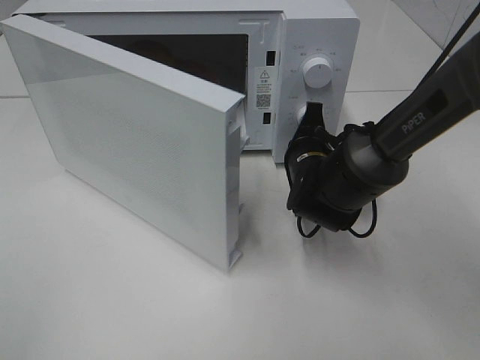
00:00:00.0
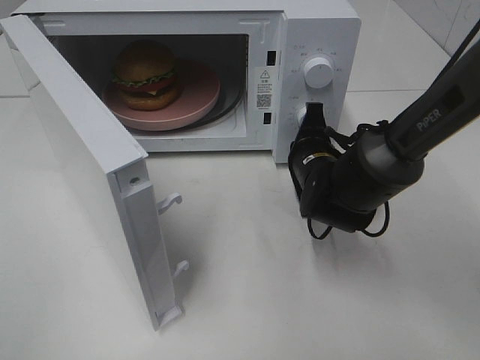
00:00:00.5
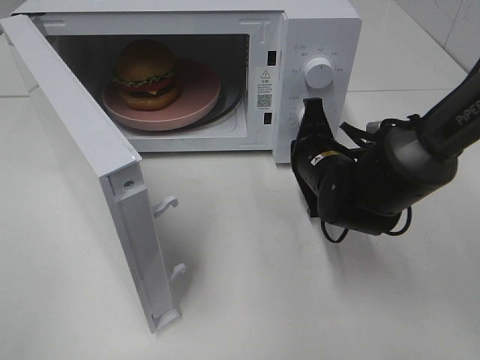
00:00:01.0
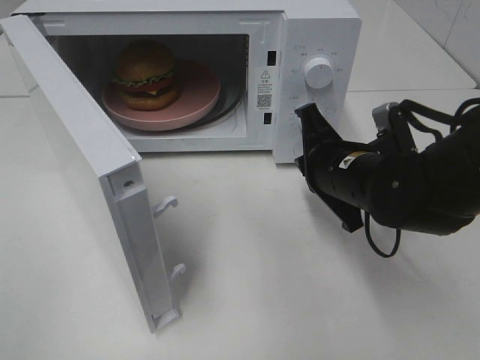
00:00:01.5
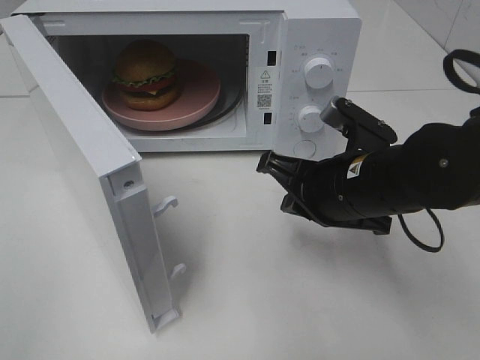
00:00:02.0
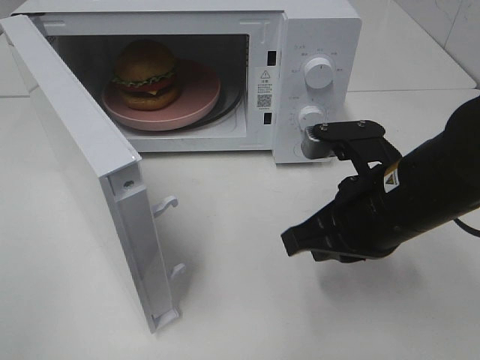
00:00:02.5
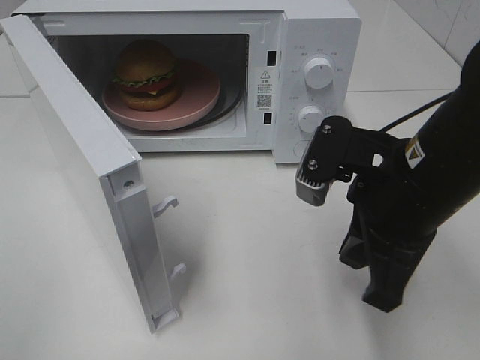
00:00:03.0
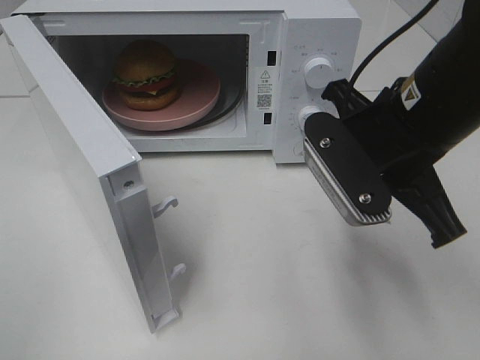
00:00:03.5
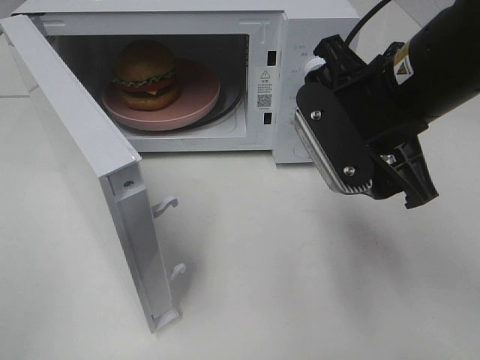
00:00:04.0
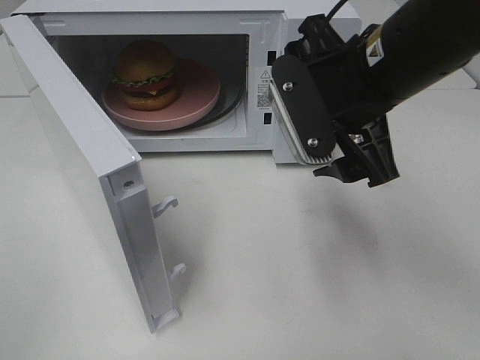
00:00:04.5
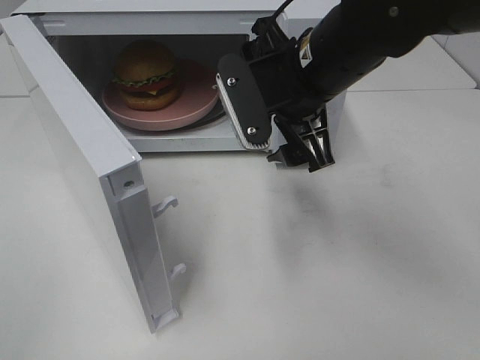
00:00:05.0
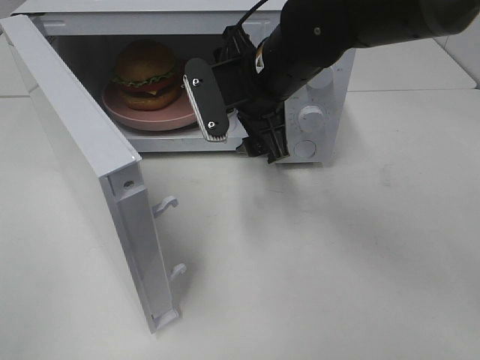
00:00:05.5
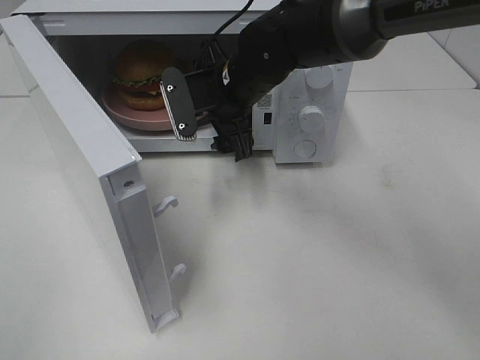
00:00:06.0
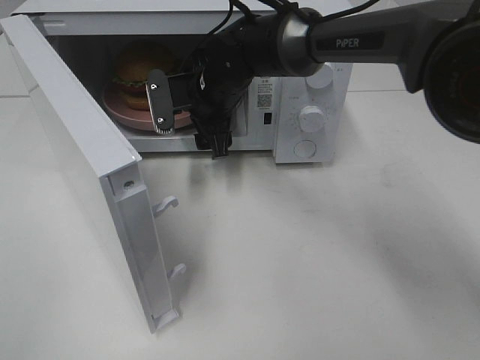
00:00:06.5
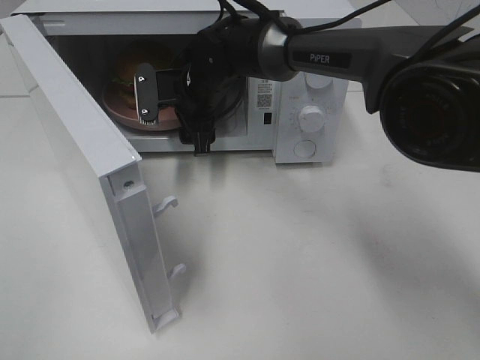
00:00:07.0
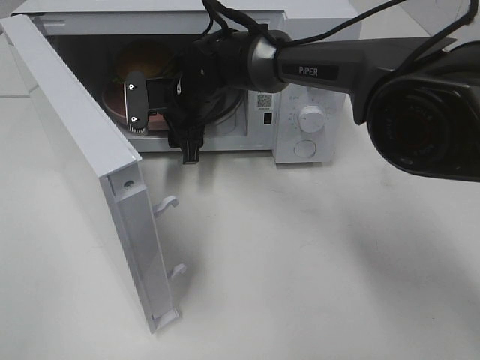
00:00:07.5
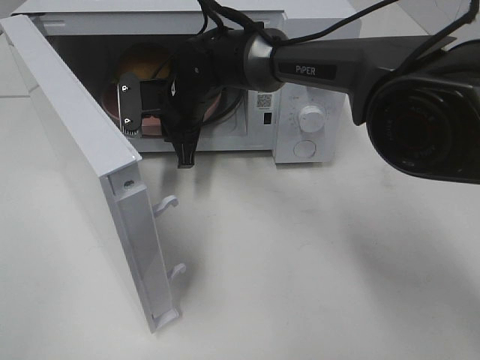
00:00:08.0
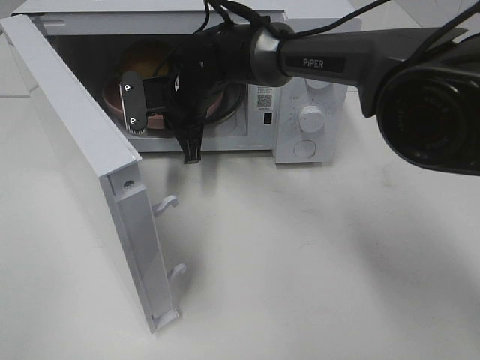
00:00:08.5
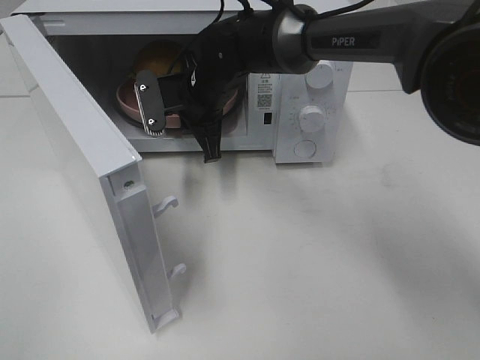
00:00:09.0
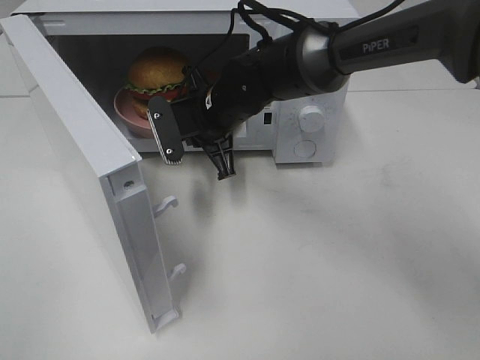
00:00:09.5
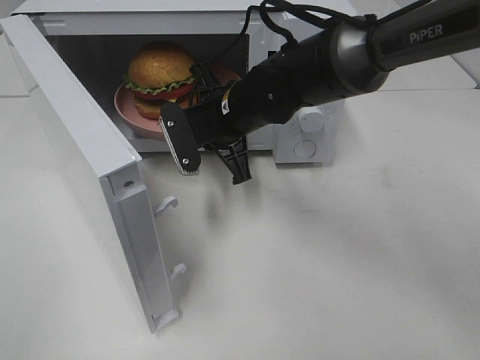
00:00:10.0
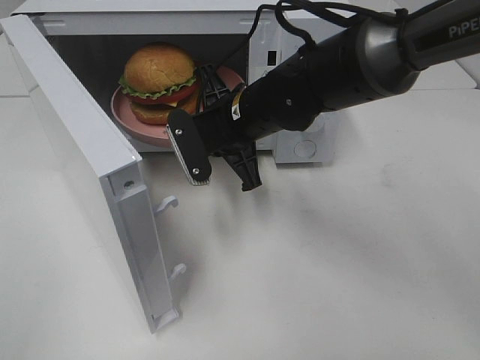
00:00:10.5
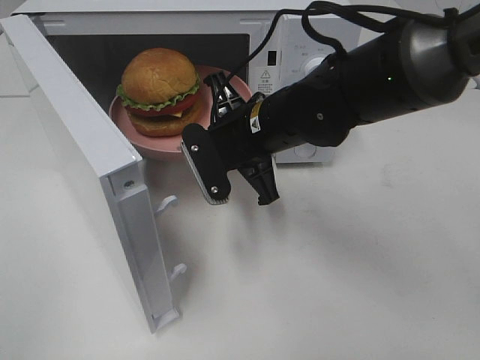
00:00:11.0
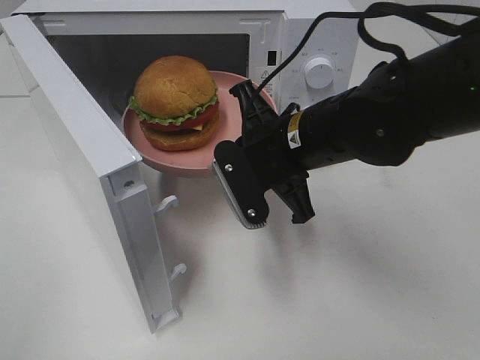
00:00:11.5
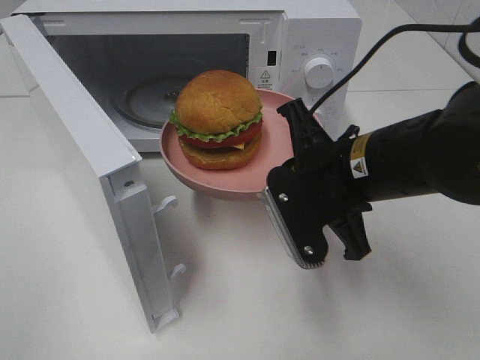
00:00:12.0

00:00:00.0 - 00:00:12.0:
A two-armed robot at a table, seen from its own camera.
Task of the whole recording: Heat the burger.
Step, 00:00:01.5 - 00:00:08.5: Right hand: grab the plate with the hamburger.
00:00:00.0 - 00:00:02.0: The right gripper moves backward and upward, approximately 15 cm.
00:00:02.0 - 00:00:04.0: The right gripper heads upward, covering some 10 cm, and opens.
00:00:04.0 - 00:00:06.0: The right gripper heads forward, to the left and downward, covering about 20 cm.
00:00:06.0 - 00:00:08.0: The right gripper is displaced to the left by some 5 cm, and closes up.
00:00:08.0 - 00:00:10.0: The right gripper shifts about 10 cm backward and to the right.
00:00:10.0 - 00:00:12.0: The right gripper heads backward and to the right, covering approximately 15 cm.

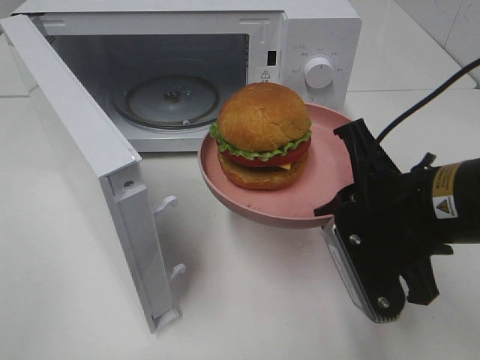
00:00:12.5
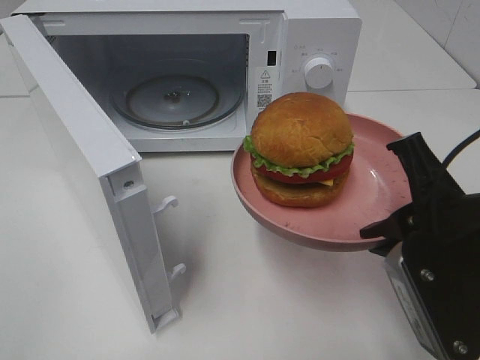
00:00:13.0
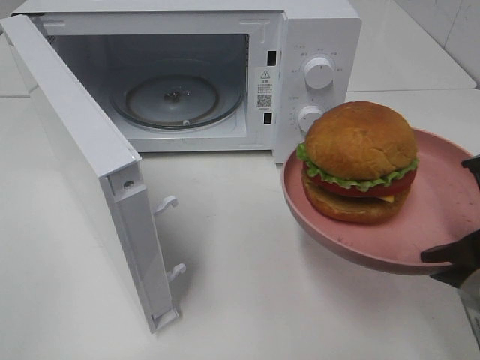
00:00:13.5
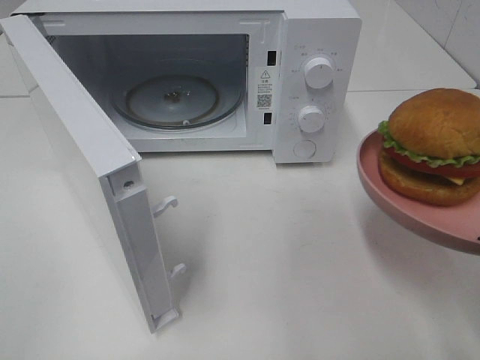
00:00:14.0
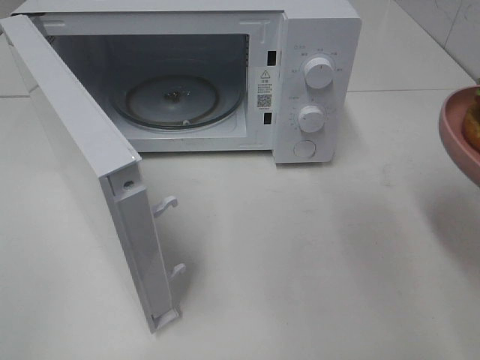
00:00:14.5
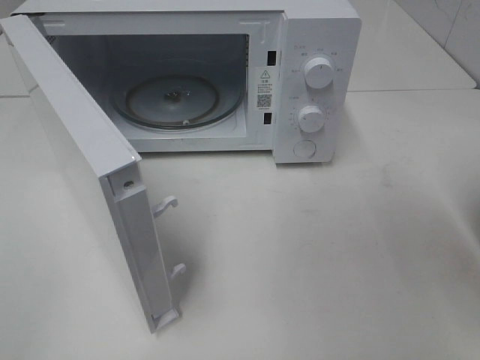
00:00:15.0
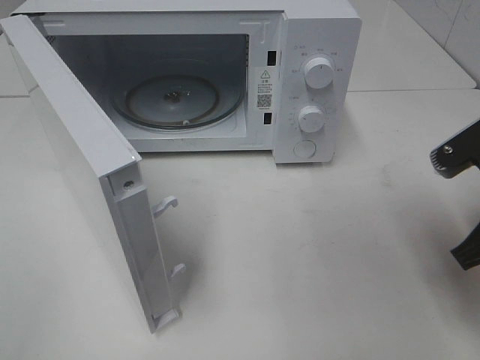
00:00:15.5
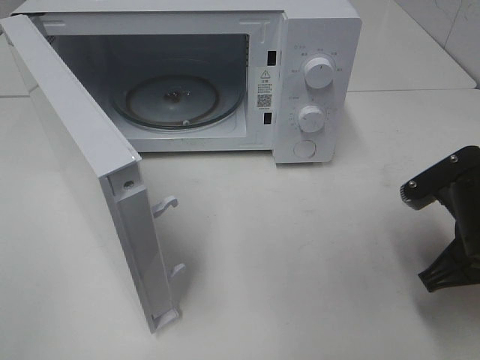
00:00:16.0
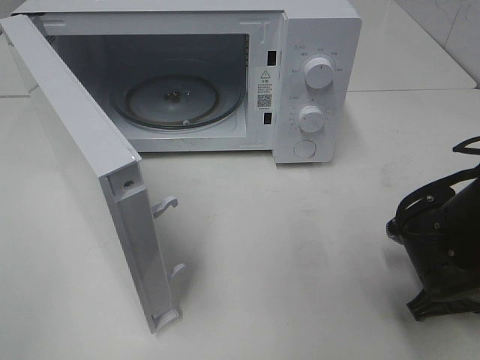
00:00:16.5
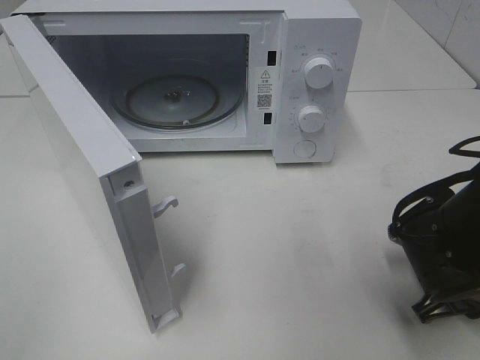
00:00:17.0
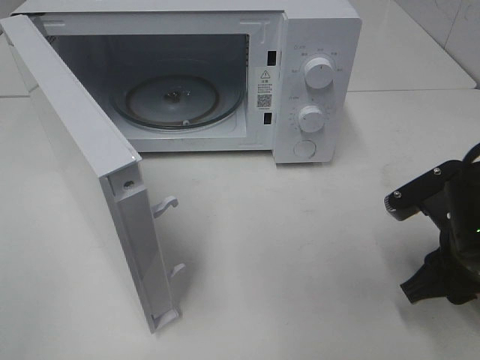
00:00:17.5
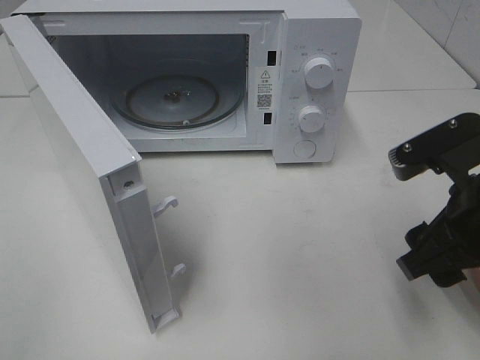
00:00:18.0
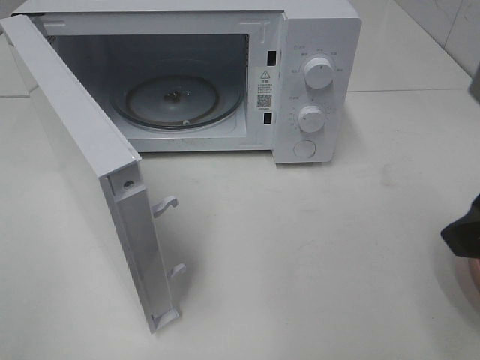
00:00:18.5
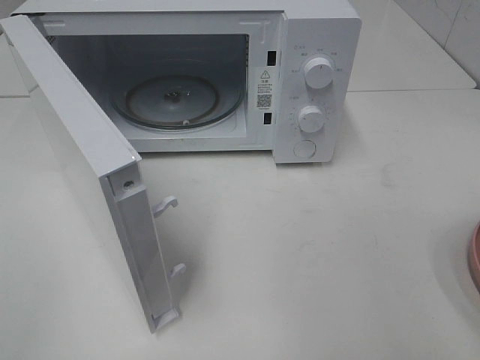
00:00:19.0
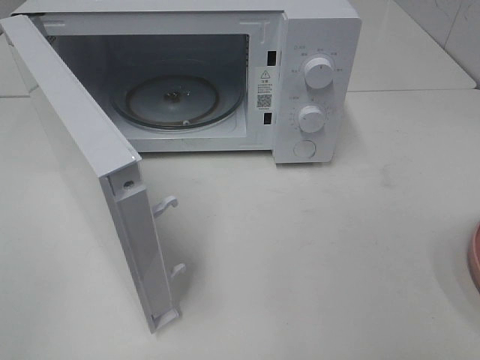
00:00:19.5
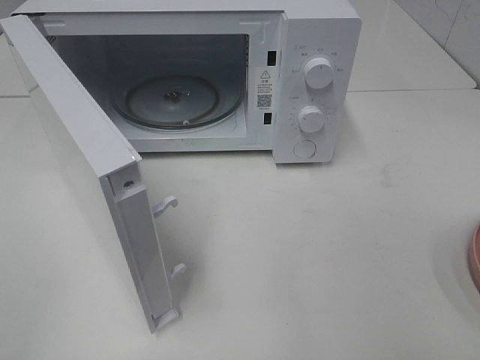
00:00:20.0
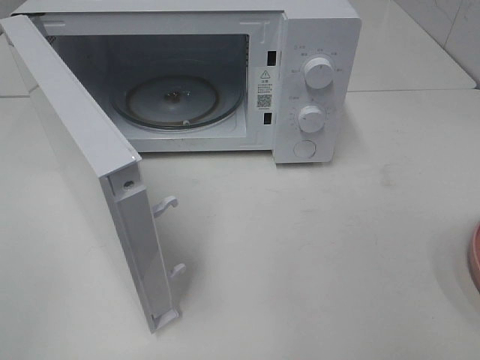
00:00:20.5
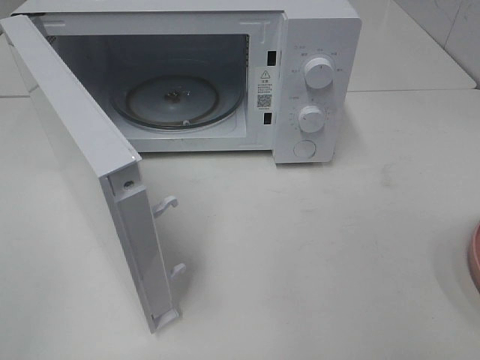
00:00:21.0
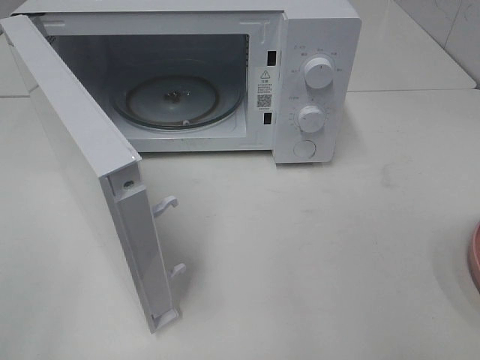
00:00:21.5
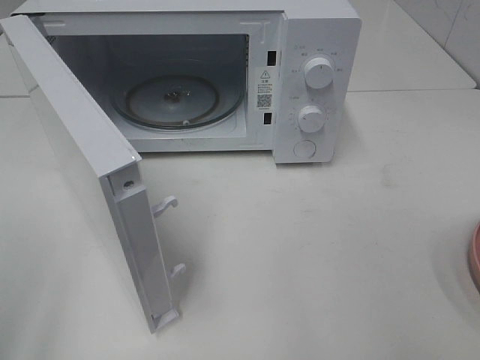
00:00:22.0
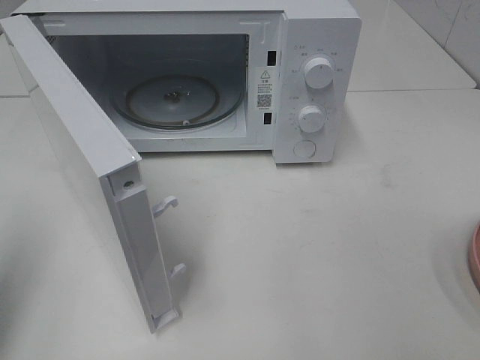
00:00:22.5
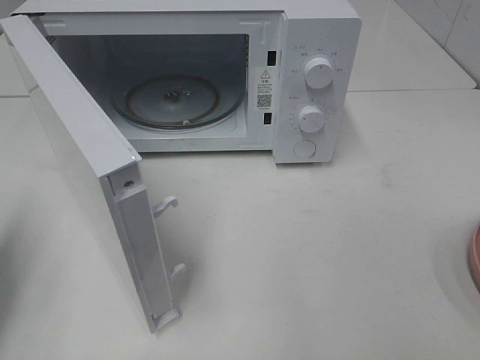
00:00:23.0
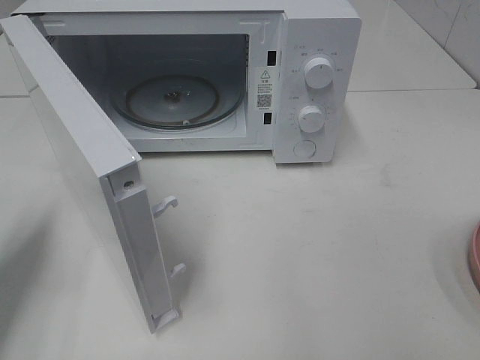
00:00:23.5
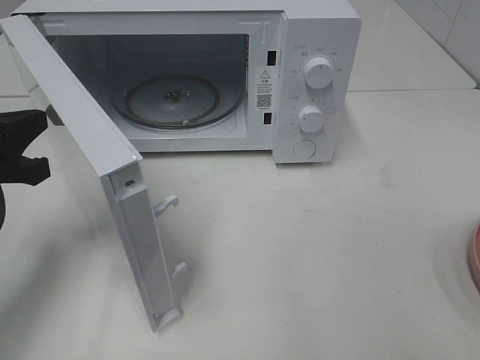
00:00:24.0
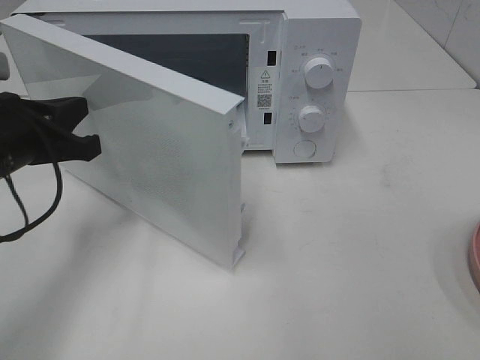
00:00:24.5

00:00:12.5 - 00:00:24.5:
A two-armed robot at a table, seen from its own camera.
Task of the whole recording: Heat the burger.
Step, 00:00:12.5 - 00:00:17.5: Right hand: place the plate on the table.
00:00:12.5 - 00:00:14.5: The right gripper is displaced to the right and backward by about 10 cm.
00:00:14.5 - 00:00:16.5: The right gripper heads downward and forward, covering approximately 15 cm.
00:00:16.5 - 00:00:18.5: The right gripper is displaced upward by approximately 20 cm, and opens up.
00:00:18.5 - 00:00:20.5: The right gripper goes roughly 15 cm backward and to the right.
00:00:20.5 - 00:00:22.5: The left gripper is displaced forward by some 15 cm, and closes its fingers.
00:00:22.5 - 00:00:24.5: The left gripper travels forward, downward and to the right by some 20 cm.

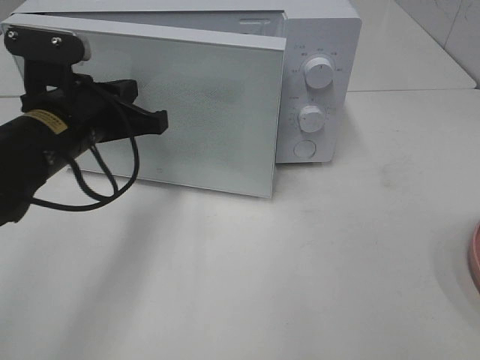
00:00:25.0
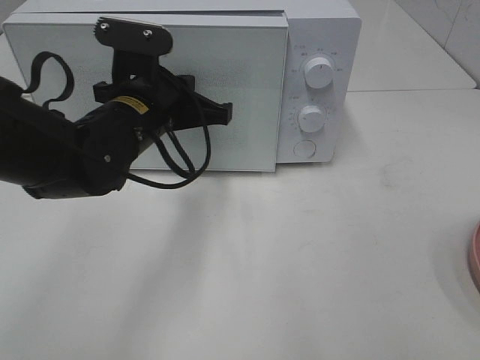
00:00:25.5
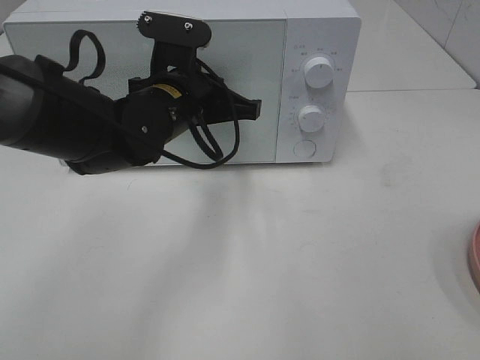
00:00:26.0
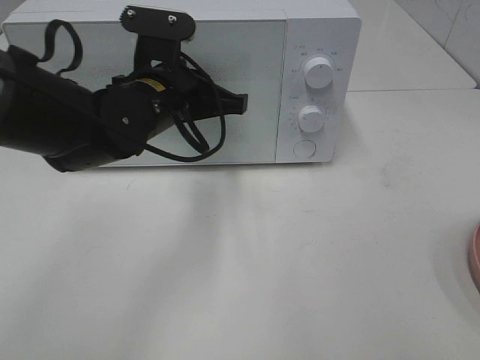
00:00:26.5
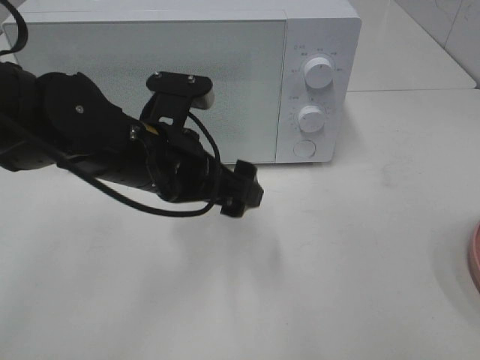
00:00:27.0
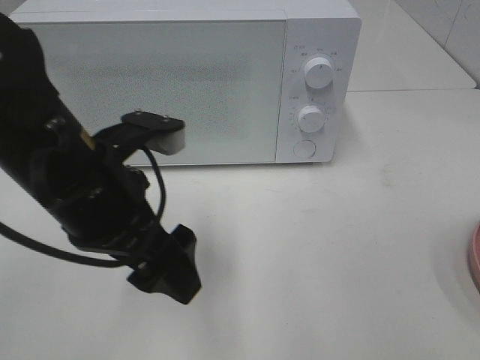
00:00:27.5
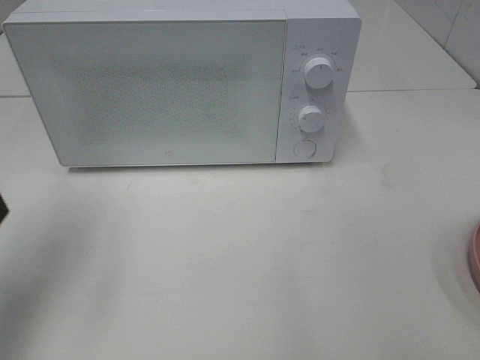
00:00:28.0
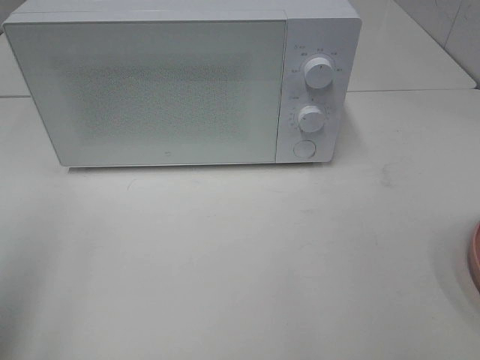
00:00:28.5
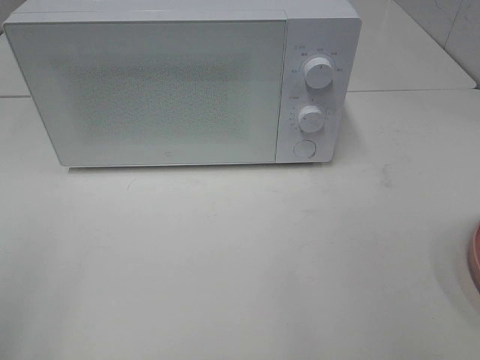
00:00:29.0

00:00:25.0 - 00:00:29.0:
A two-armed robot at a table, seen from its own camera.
Task of the whole recording: Heat the burger.
00:00:25.0 - 00:00:27.0: The left gripper goes some 10 cm to the right, and opens its fingers.
00:00:27.0 - 00:00:29.0: The left gripper shifts about 35 cm to the left, backward and upward.
